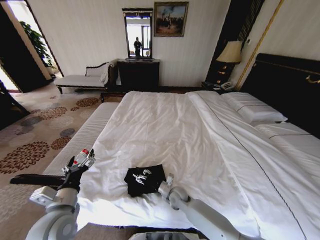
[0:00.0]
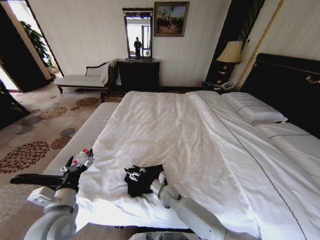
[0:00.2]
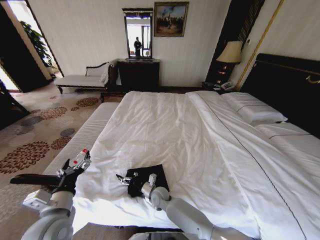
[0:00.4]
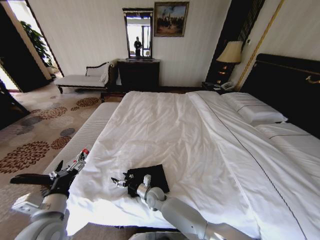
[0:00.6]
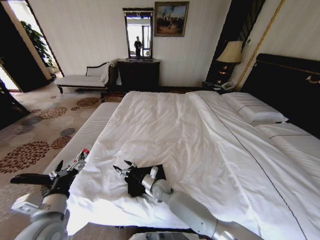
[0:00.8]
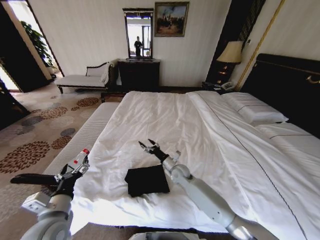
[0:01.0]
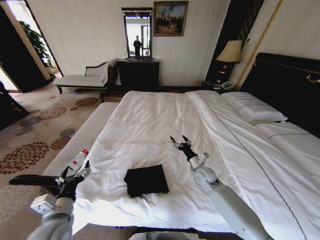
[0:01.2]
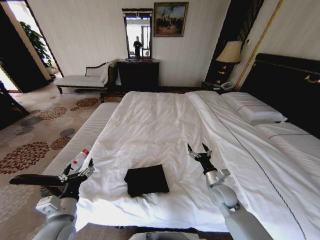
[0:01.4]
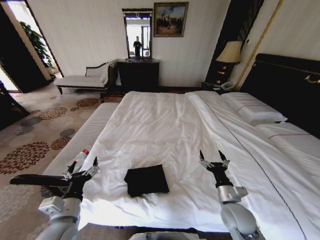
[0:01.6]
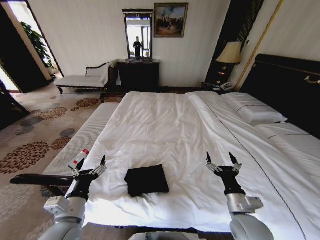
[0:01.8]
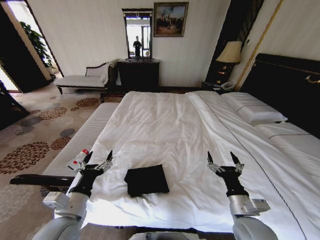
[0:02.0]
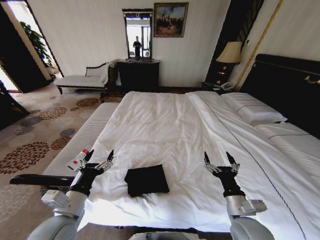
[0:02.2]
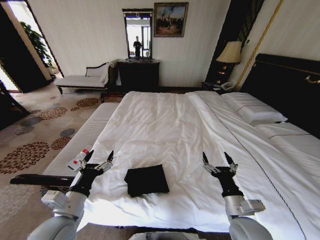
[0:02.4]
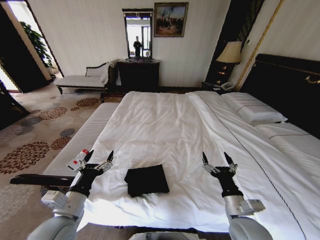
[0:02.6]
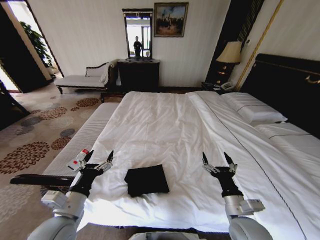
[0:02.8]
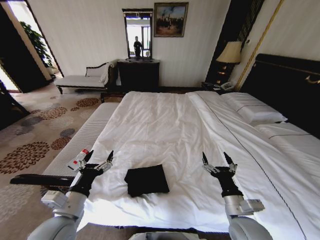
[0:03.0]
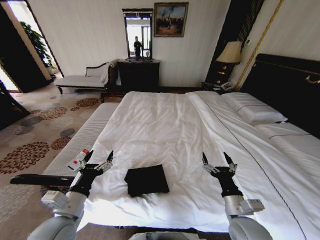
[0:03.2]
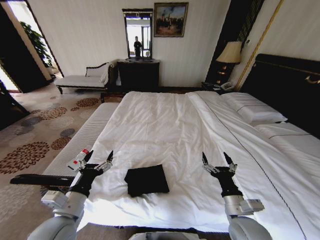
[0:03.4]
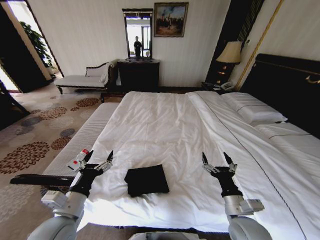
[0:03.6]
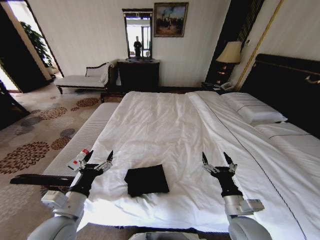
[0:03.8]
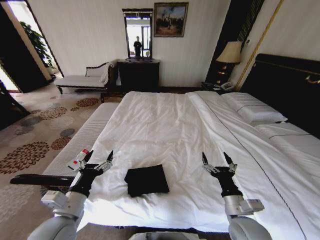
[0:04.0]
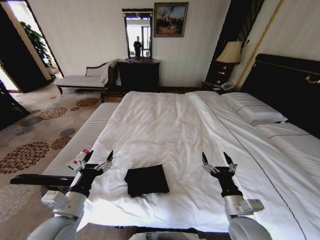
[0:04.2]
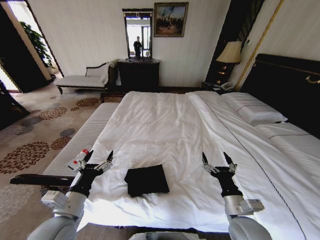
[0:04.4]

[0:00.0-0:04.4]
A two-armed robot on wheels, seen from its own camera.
Task of the whole recording: Fold the clothes on the bed.
0:00.0 to 0:01.4: The right gripper is displaced to the right and upward by roughly 20 cm.
0:01.4 to 0:03.0: The right gripper goes about 15 cm backward and upward.
0:03.0 to 0:04.4: Both grippers stay put.

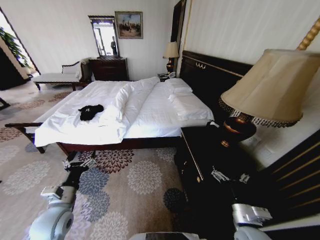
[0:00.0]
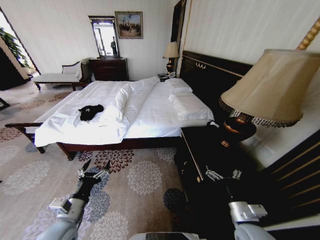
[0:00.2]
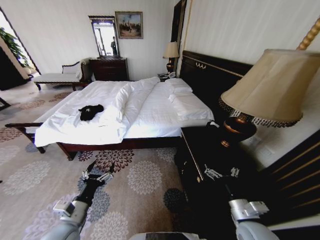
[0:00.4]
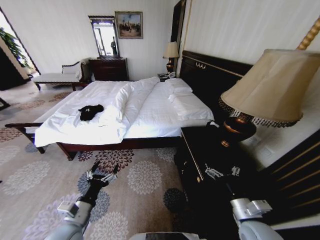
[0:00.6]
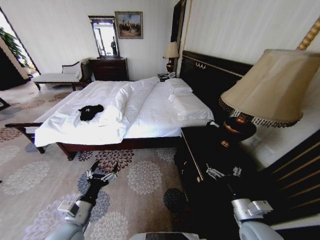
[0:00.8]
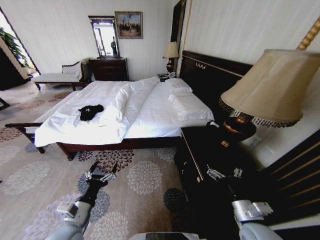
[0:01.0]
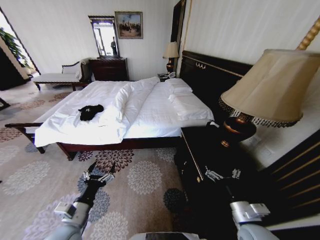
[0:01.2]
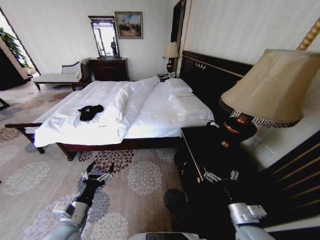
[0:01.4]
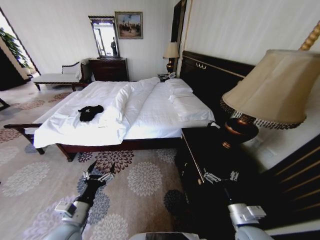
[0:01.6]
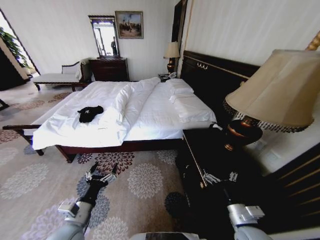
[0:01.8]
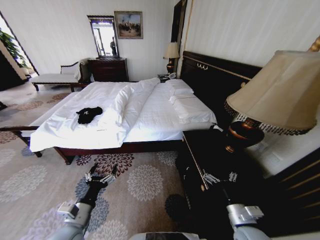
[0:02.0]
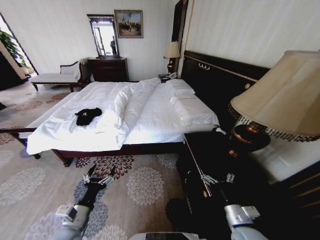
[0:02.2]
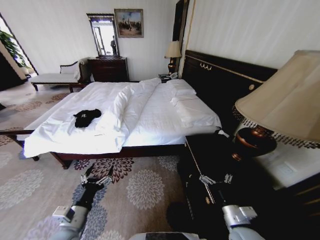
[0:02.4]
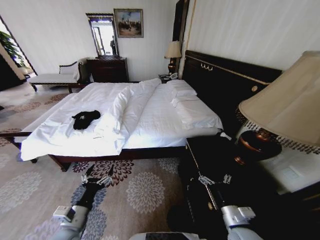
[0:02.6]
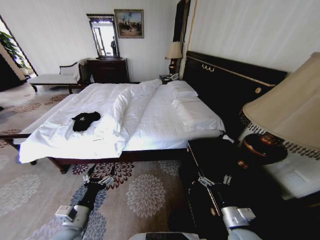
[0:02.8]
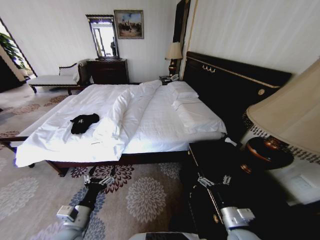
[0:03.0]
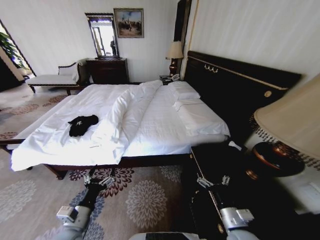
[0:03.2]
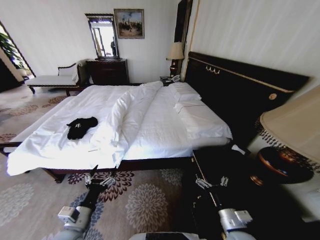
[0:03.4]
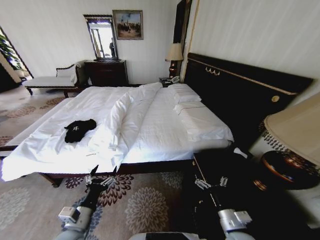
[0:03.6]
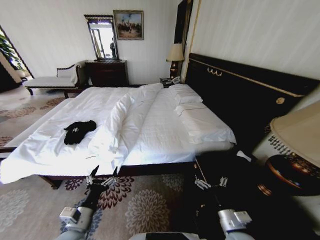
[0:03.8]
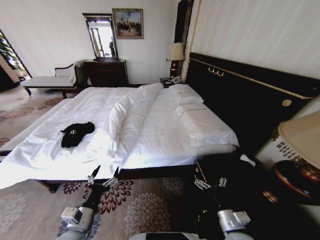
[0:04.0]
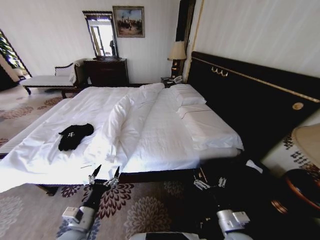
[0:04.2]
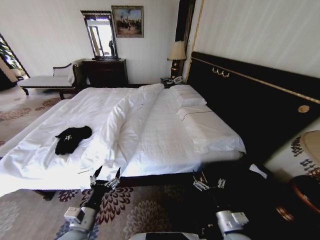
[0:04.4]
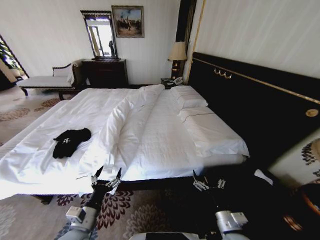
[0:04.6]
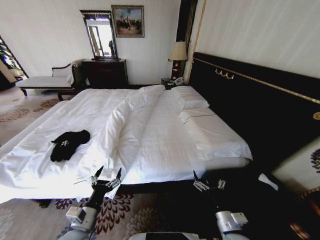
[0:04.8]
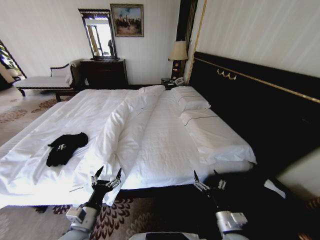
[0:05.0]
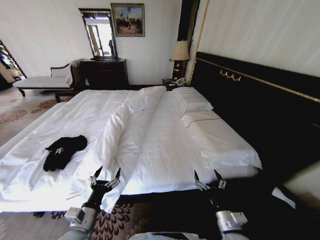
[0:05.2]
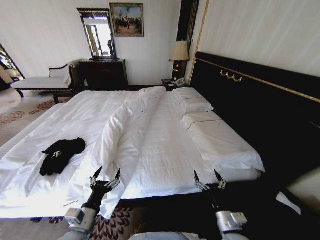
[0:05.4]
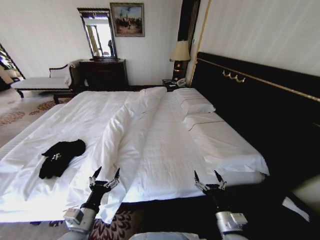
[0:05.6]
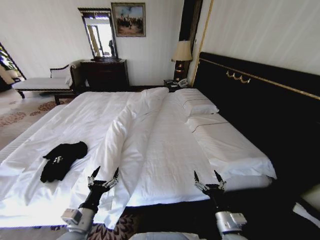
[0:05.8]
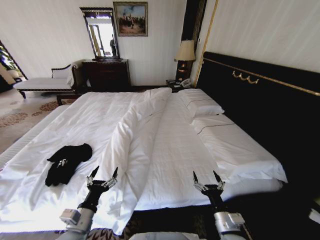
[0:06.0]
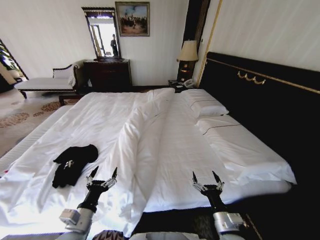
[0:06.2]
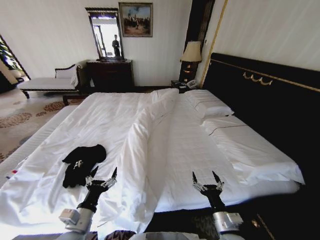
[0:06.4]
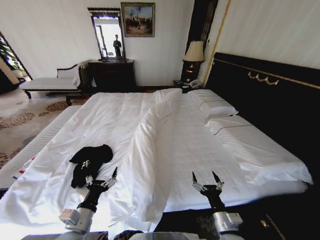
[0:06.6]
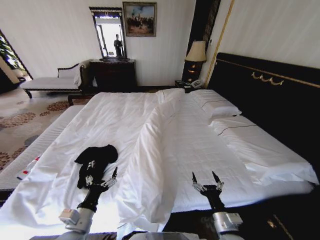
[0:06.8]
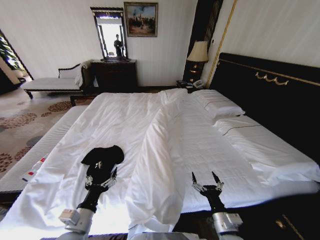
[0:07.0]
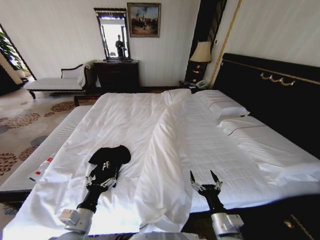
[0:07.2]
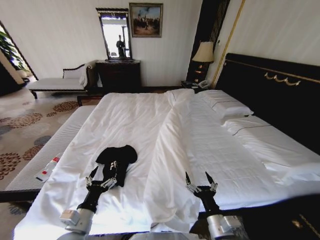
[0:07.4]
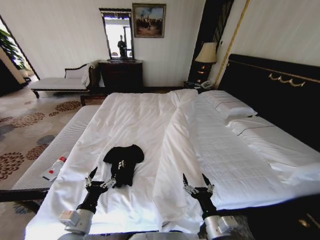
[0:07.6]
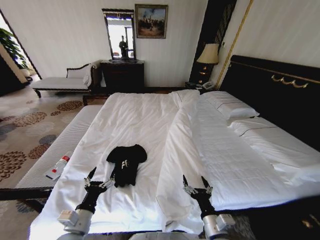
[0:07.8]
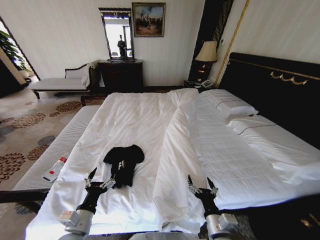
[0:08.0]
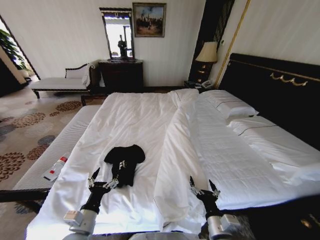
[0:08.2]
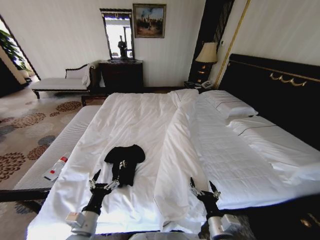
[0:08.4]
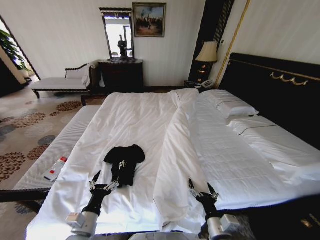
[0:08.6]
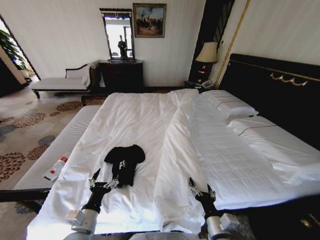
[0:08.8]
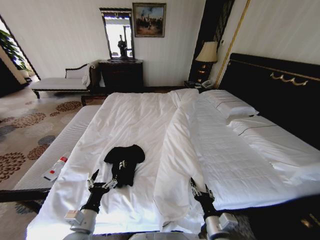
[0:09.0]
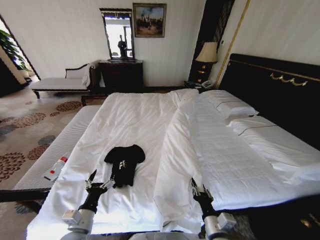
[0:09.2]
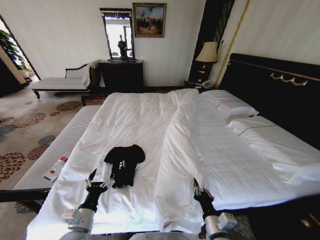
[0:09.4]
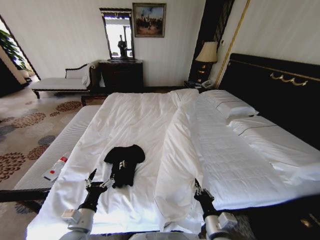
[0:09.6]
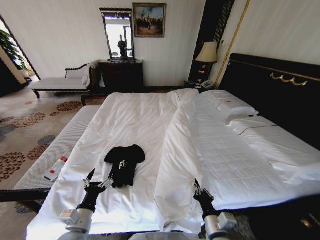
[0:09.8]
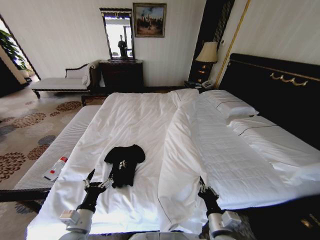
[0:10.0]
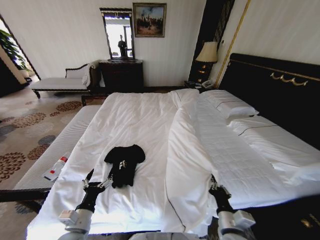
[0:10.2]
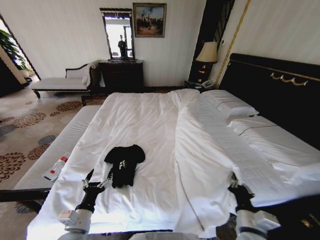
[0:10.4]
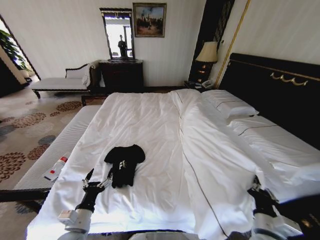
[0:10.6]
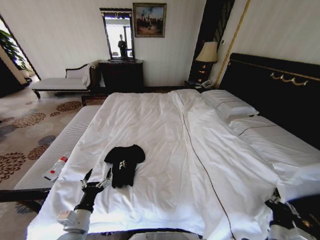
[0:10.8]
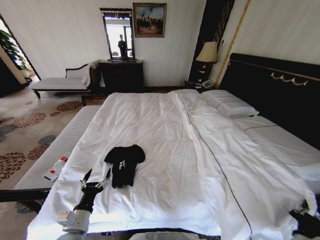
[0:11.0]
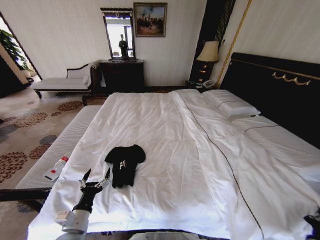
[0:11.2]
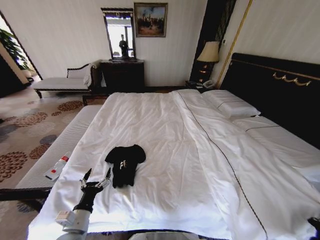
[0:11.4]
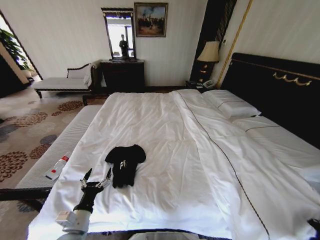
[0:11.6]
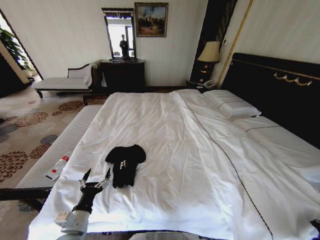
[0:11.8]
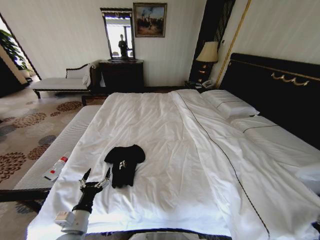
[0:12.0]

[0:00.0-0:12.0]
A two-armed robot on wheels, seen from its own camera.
Task of the whole recording: Fold the clothes on the bed.
0:06.0 to 0:07.6: The right gripper shifts by roughly 5 cm.
0:07.6 to 0:09.0: The grippers move only a little.
0:09.0 to 0:10.4: The right gripper is displaced to the right by roughly 5 cm, and closes up.
0:10.4 to 0:12.0: The right gripper moves to the right, some 25 cm.

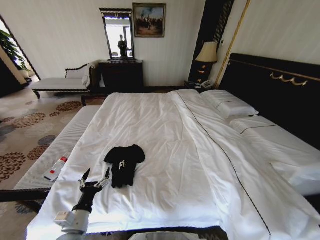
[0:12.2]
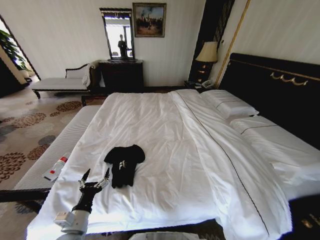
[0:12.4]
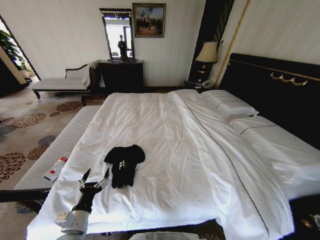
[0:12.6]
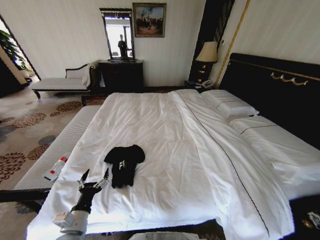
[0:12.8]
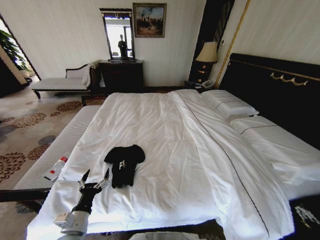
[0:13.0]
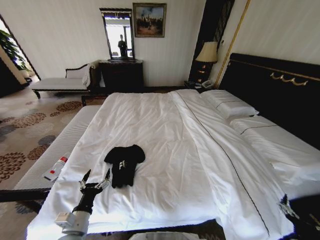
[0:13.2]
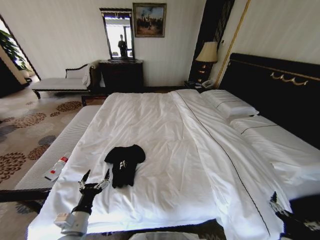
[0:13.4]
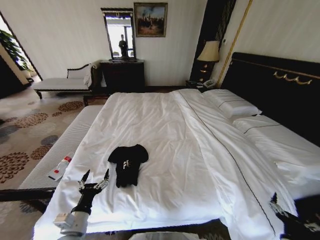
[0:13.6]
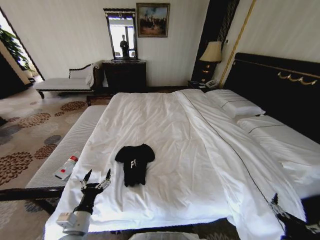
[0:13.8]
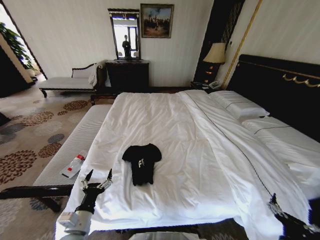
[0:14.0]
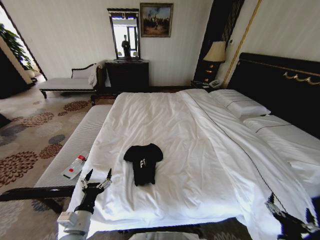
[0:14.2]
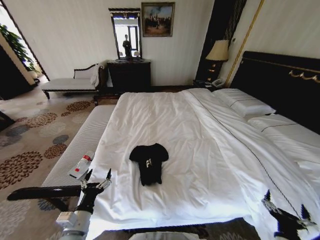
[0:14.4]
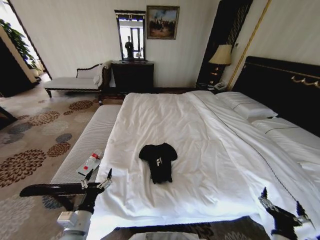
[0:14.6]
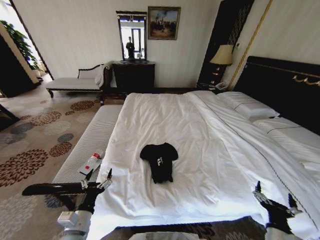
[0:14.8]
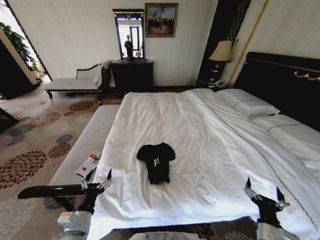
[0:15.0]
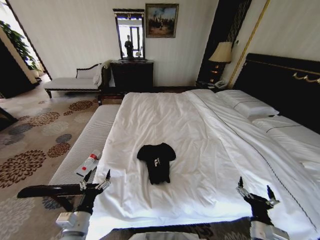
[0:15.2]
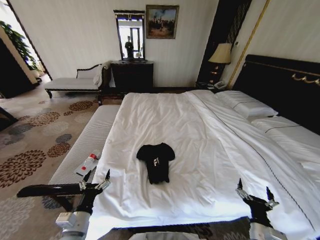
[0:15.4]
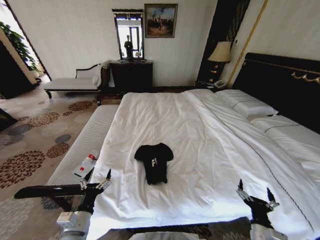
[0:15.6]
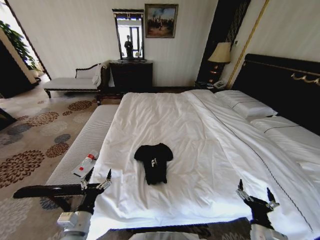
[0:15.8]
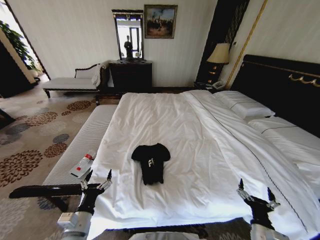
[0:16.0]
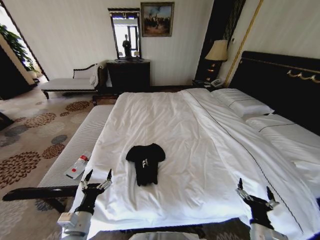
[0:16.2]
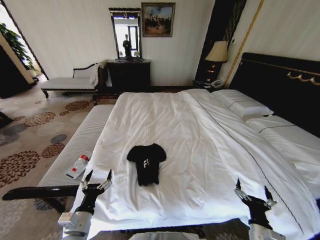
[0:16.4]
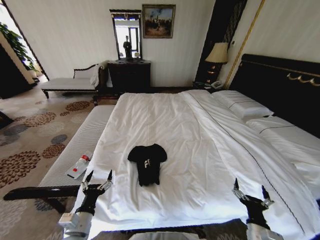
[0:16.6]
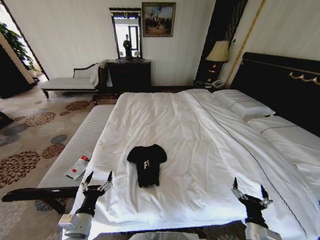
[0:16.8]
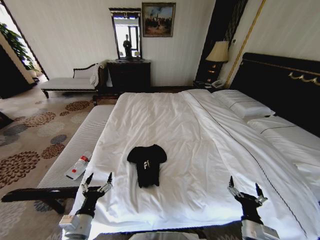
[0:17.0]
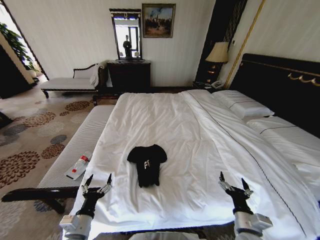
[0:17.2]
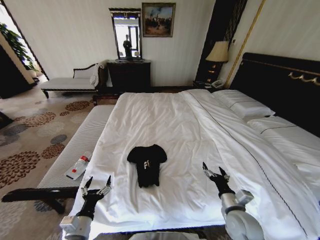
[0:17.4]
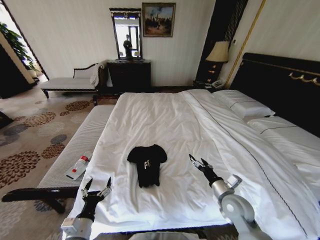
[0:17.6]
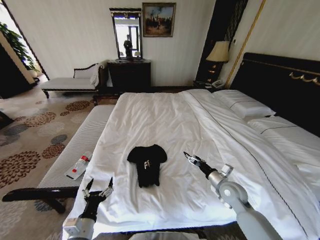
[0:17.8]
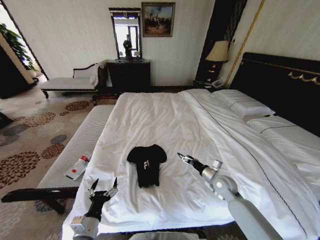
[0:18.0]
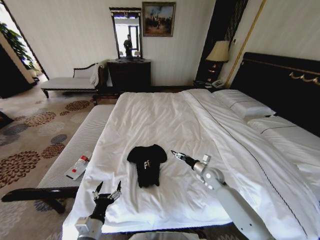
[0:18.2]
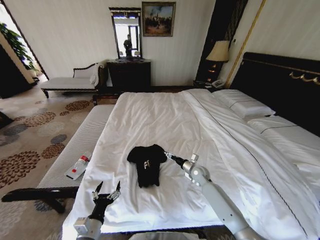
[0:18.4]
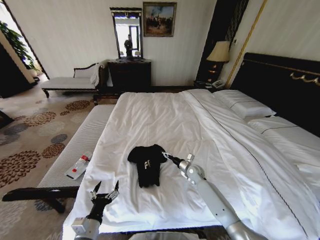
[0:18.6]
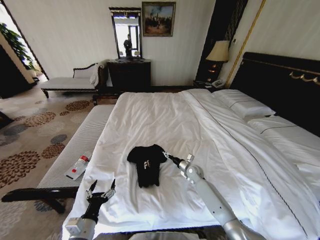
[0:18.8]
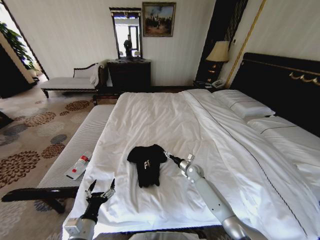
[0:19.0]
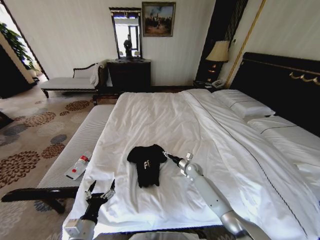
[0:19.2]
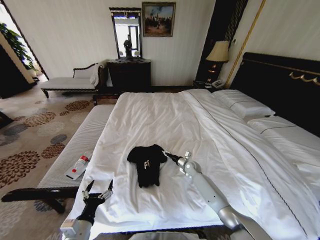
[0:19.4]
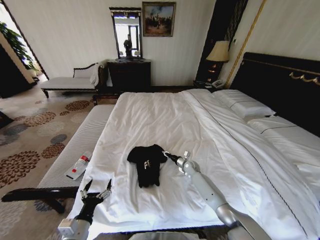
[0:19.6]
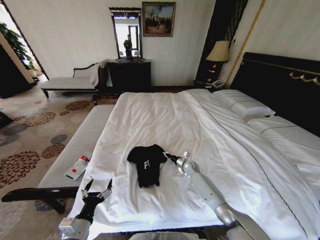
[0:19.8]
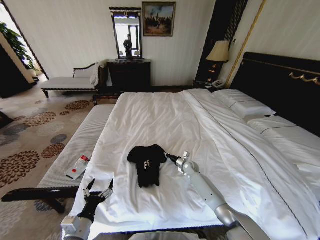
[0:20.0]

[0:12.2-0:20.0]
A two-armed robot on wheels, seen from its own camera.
Task of the whole recording: Fold the clothes on the bed.
0:12.2 to 0:13.8: The right gripper travels to the left by about 10 cm, and opens its fingers.
0:13.8 to 0:15.4: The right gripper shifts approximately 5 cm to the left.
0:16.8 to 0:18.4: The right gripper heads forward, covering some 30 cm.
0:18.4 to 0:20.0: The right gripper shifts some 10 cm forward and downward, and closes.
